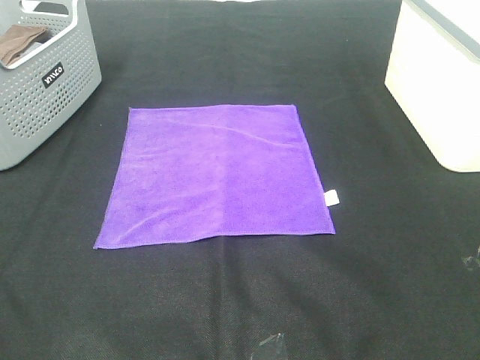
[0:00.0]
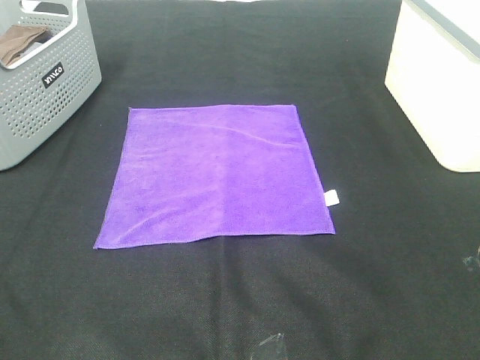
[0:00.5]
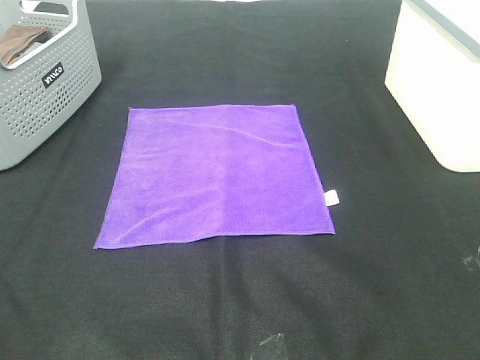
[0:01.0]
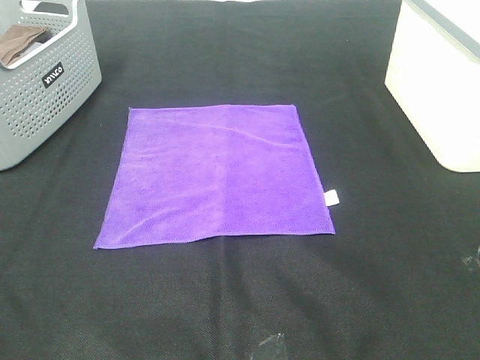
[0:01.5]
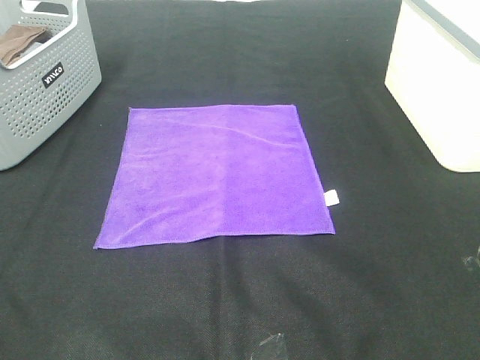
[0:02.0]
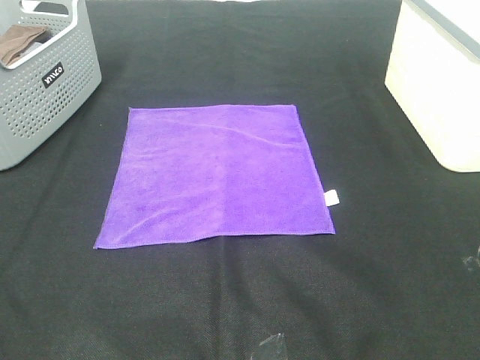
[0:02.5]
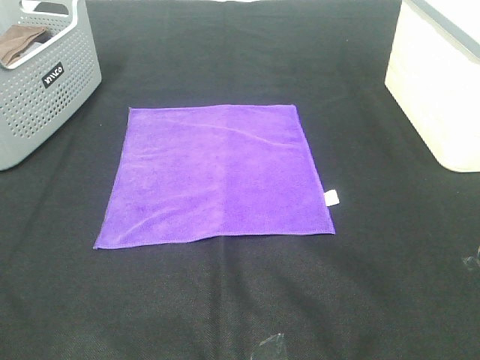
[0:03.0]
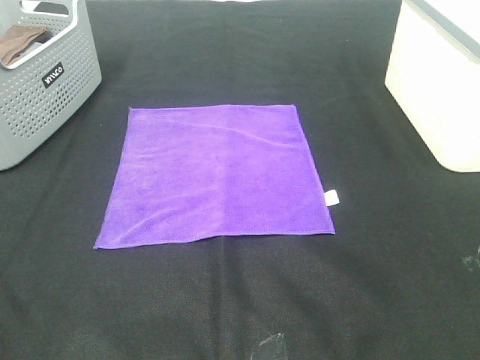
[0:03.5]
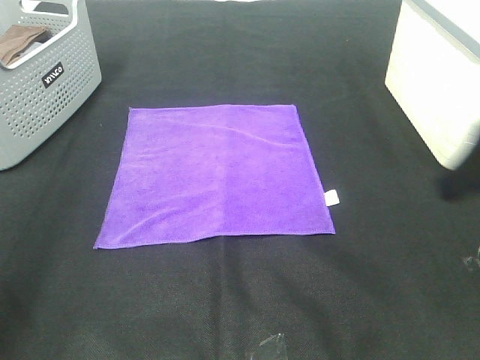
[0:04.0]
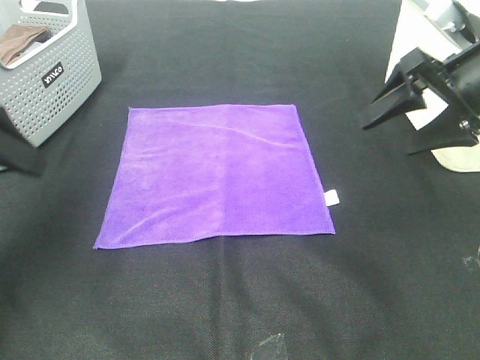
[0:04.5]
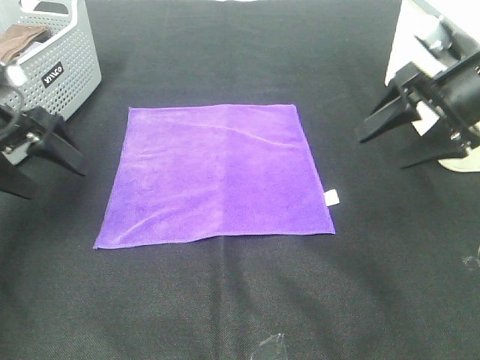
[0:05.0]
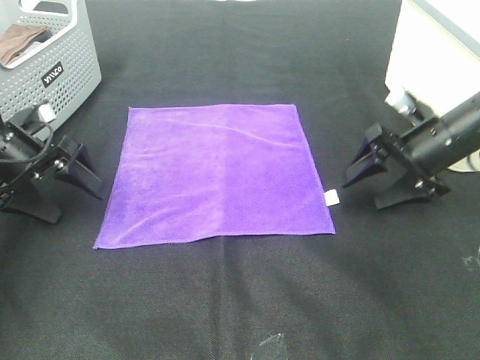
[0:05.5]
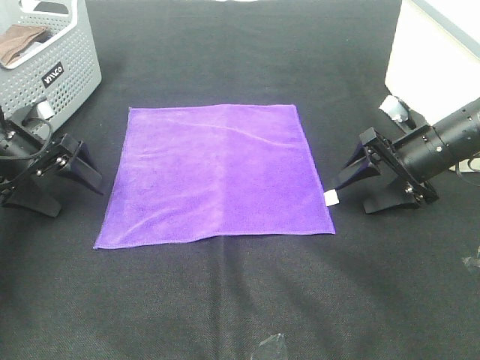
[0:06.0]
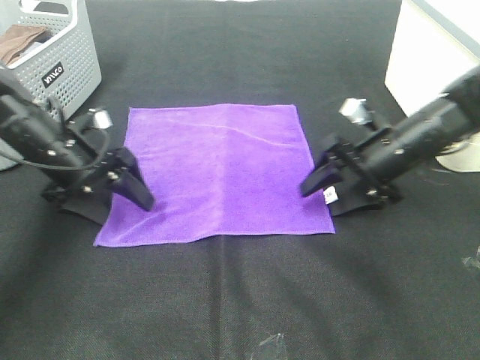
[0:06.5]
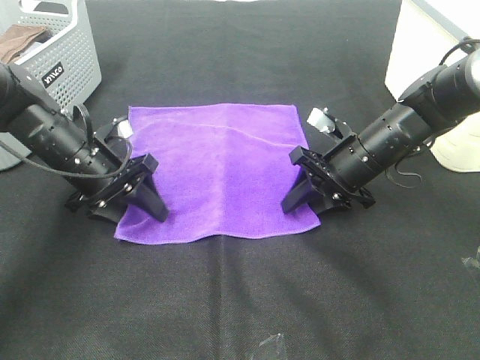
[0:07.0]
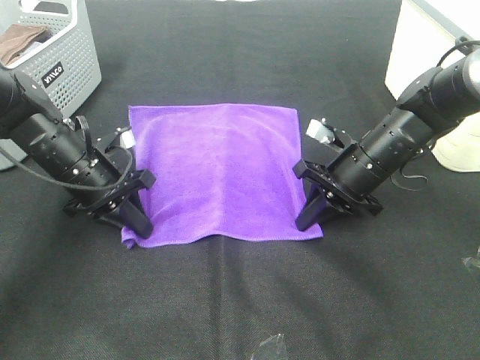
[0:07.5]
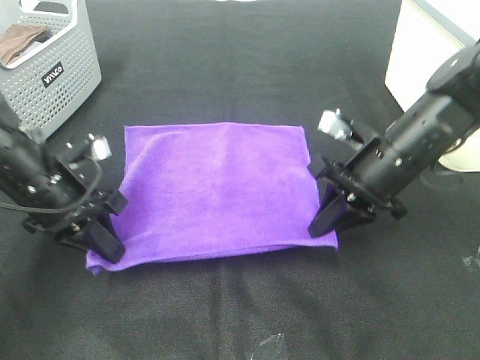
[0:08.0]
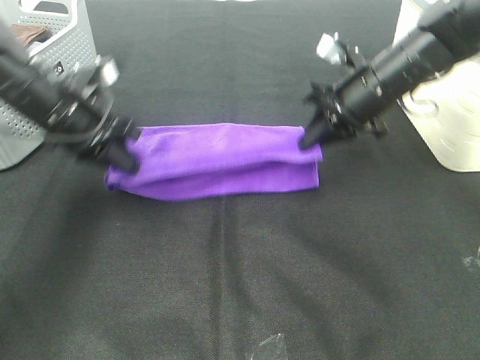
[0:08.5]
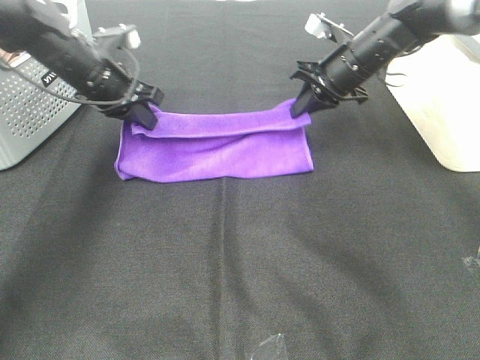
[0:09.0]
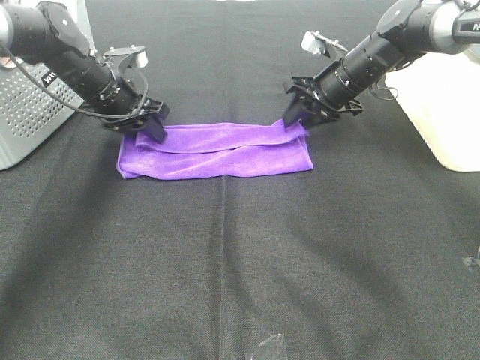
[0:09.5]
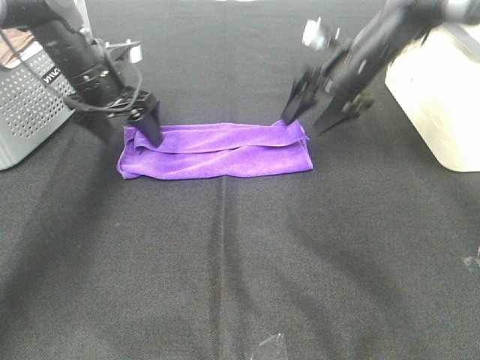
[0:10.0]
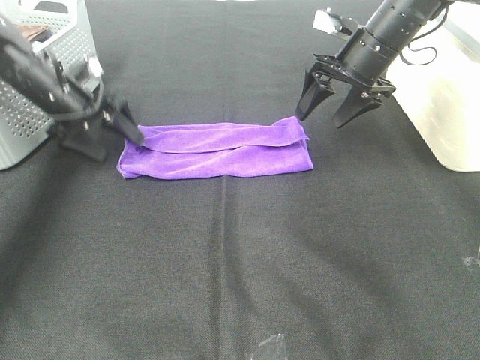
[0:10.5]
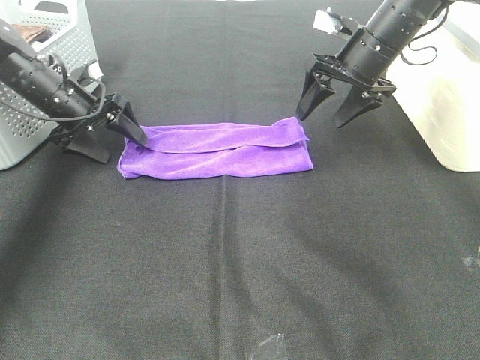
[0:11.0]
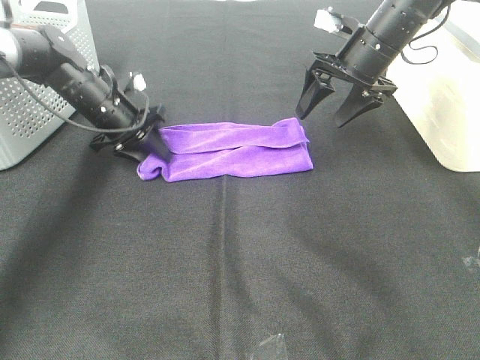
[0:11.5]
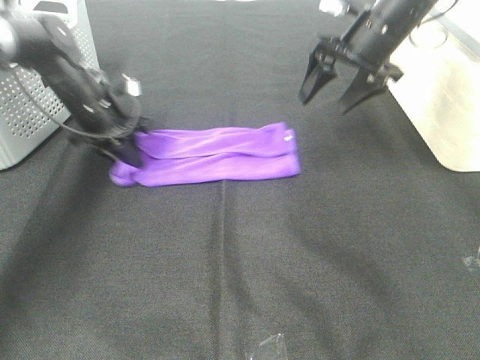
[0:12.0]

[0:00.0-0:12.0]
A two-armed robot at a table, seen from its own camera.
Task of the whole recording: Fold towels.
Step, 0:00.0 to 0:07.0: Left hand: grab the bottom left corner of purple towel.
Step, 0:00.0 to 0:07.0: Right hand: grab the bottom right corner of purple towel.
Step, 0:07.5 to 0:09.0: Left hand: fold the purple towel up.
Step, 0:07.5 to 0:09.0: Right hand: fold the purple towel up.
0:00.0 to 0:02.0: The two grippers keep their place.
0:02.0 to 0:04.0: The two grippers go some 20 cm forward.
0:04.0 to 0:06.0: The right gripper goes about 25 cm downward and forward. Meanwhile the left gripper moves forward and downward, roughly 30 cm.
0:06.0 to 0:08.0: The left gripper moves to the right and backward, roughly 10 cm, and closes up. The right gripper shifts about 10 cm to the left and backward, and closes its fingers.
0:08.0 to 0:10.0: The grippers both shift forward by about 15 cm. The left gripper opens up, while the right gripper opens its fingers.
0:10.0 to 0:12.0: The left gripper closes its fingers.

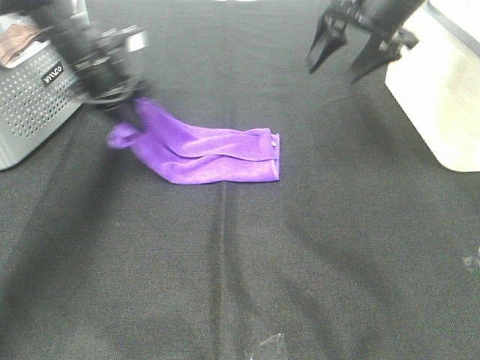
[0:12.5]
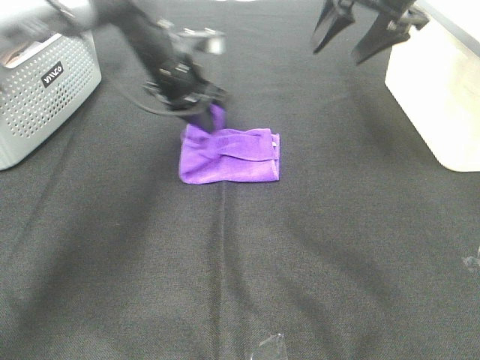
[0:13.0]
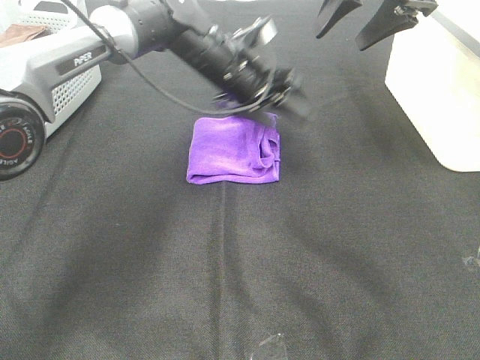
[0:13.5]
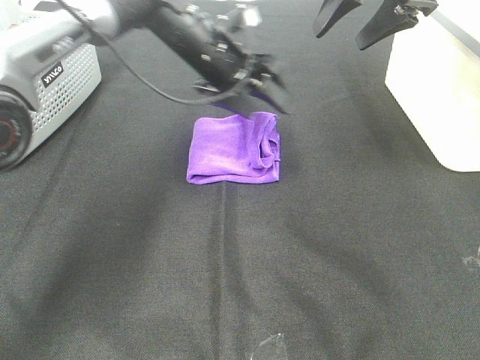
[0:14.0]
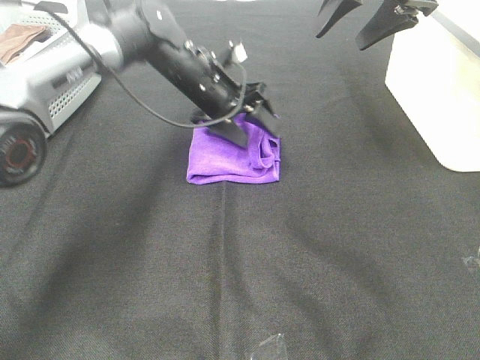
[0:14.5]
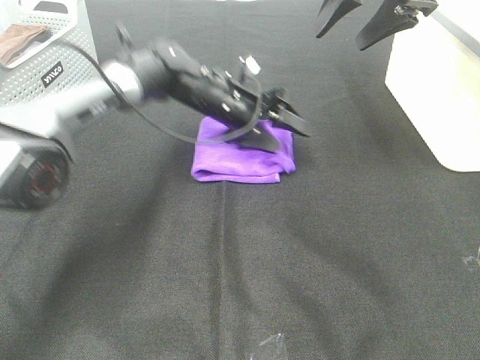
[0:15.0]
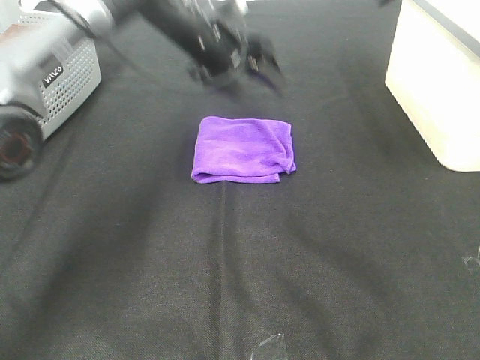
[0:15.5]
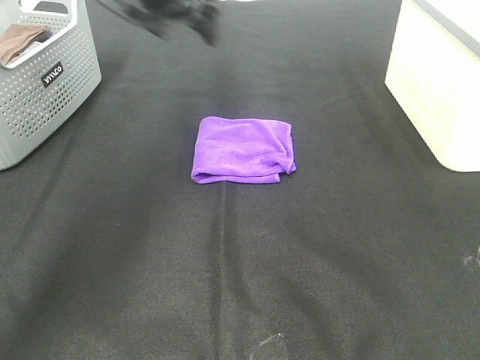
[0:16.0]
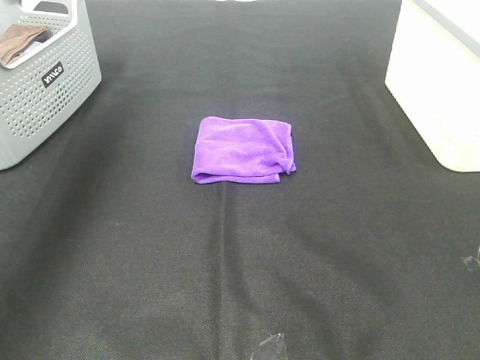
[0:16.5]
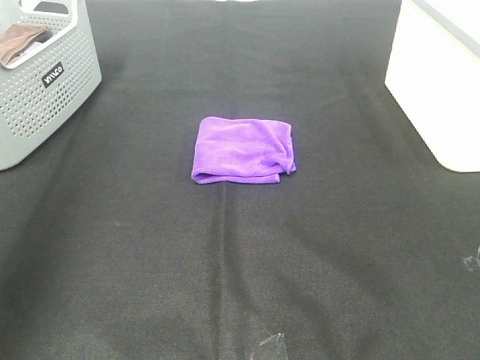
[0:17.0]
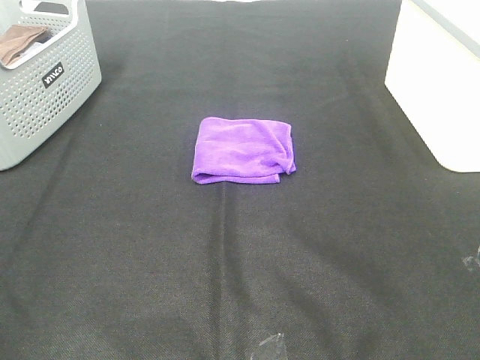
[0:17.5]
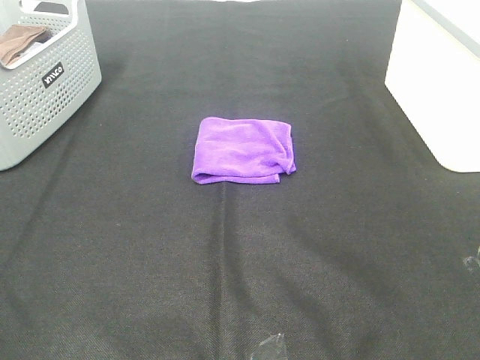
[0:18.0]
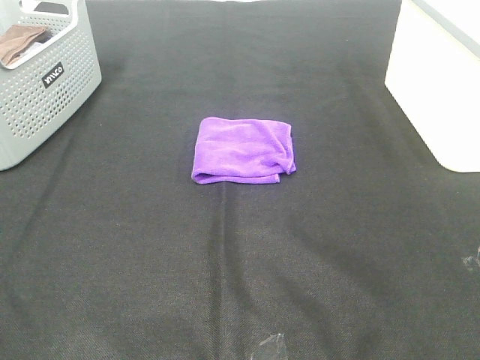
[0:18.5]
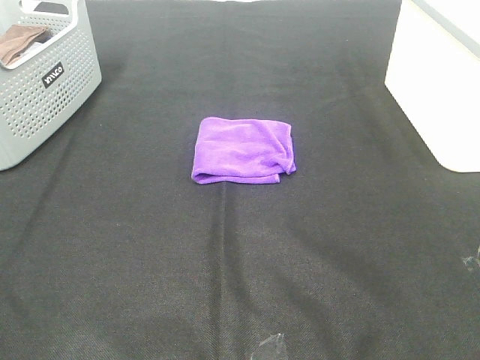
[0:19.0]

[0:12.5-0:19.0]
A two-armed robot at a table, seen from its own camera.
Task of the whole recording: Fold towels.
0:12.5 to 0:14.5: The left gripper moves to the right and downward, some 15 cm, and opens up.
0:14.5 to 0:17.0: The right gripper moves backward, roughly 40 cm; the left gripper heads backward, upward and to the left, covering some 50 cm.
0:17.0 to 0:19.0: The left gripper heads backward and downward, covering about 20 cm.
